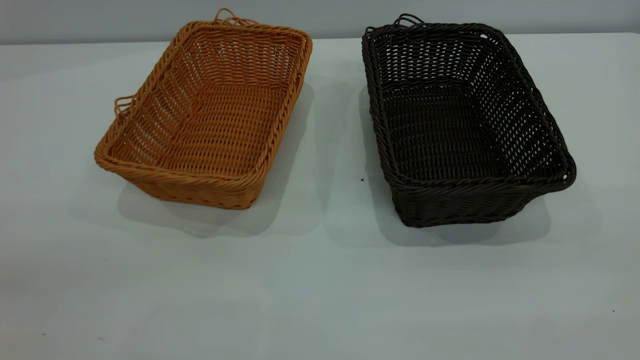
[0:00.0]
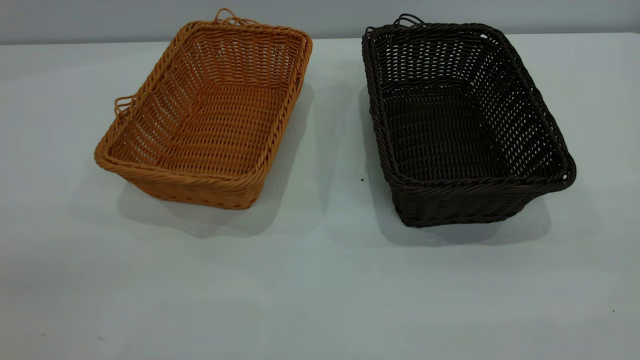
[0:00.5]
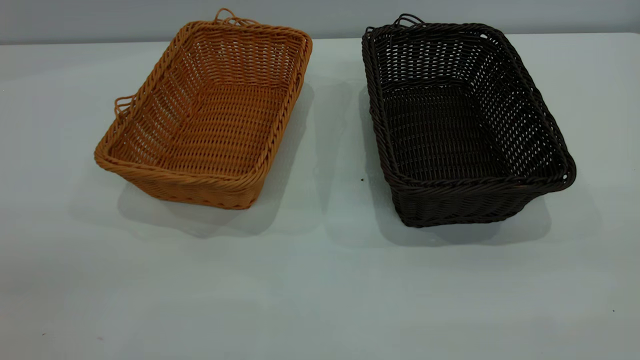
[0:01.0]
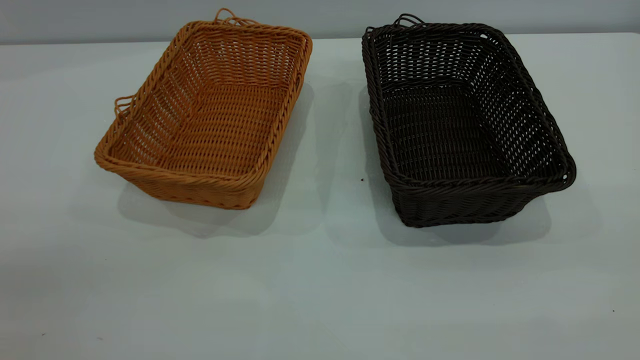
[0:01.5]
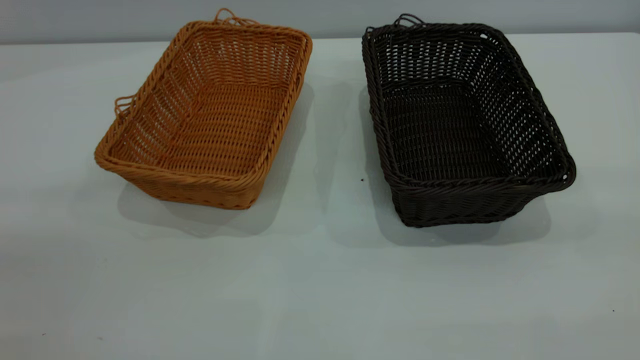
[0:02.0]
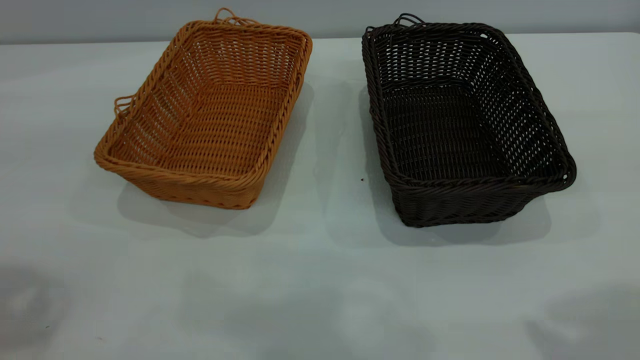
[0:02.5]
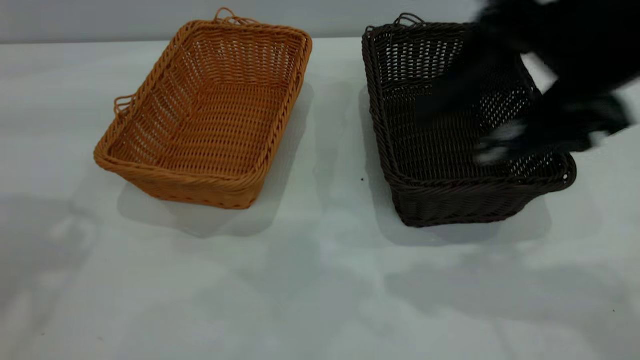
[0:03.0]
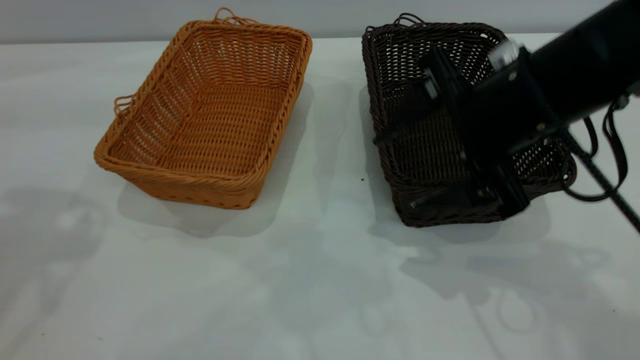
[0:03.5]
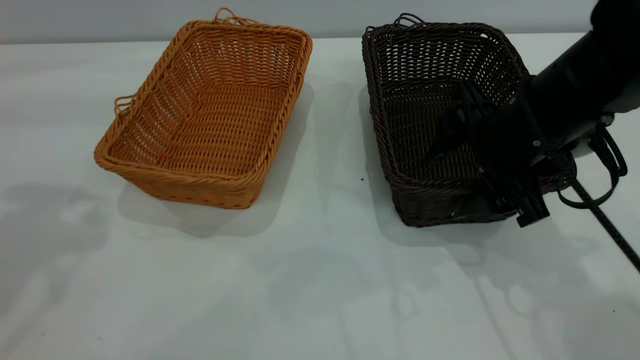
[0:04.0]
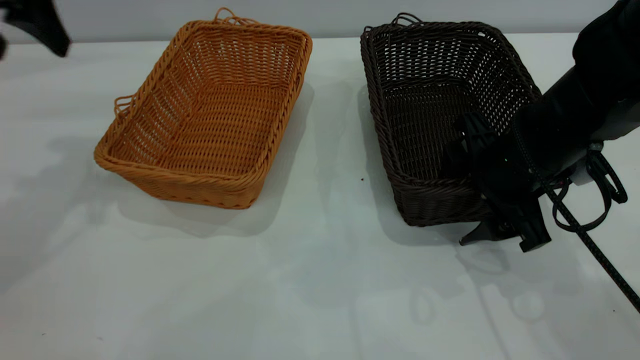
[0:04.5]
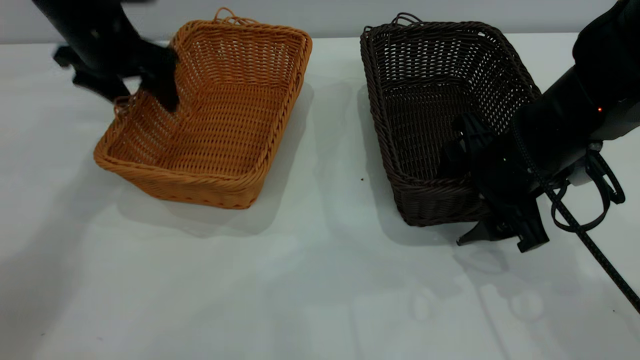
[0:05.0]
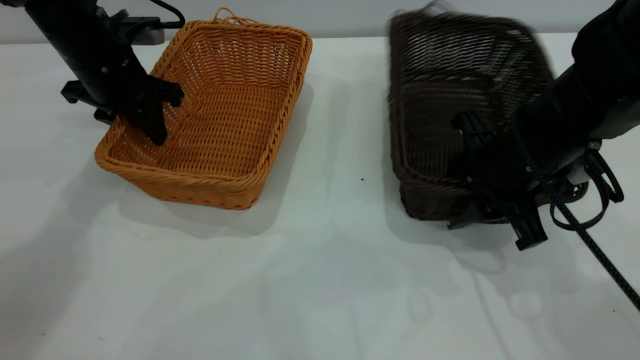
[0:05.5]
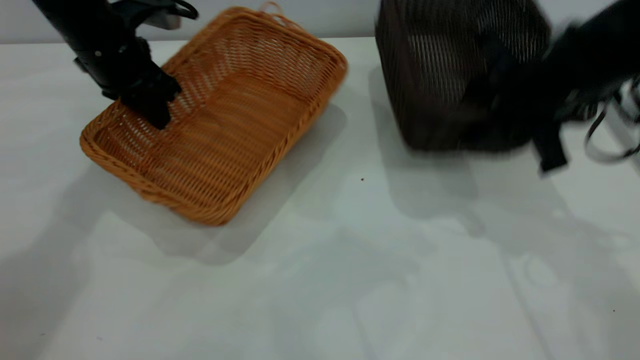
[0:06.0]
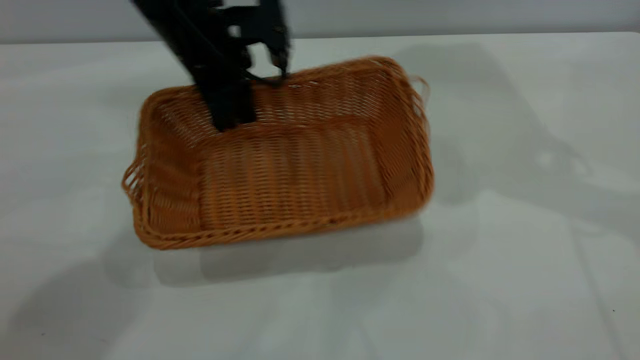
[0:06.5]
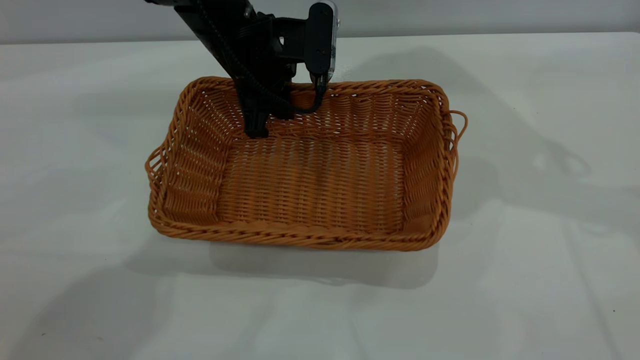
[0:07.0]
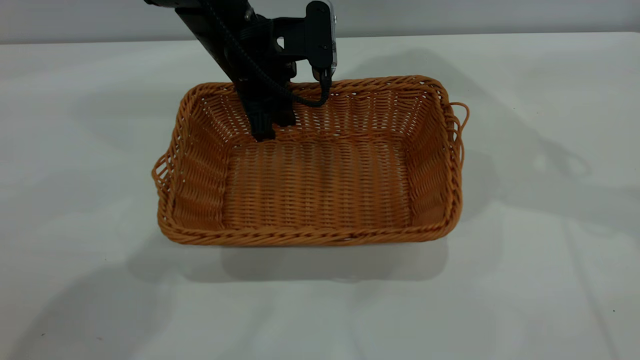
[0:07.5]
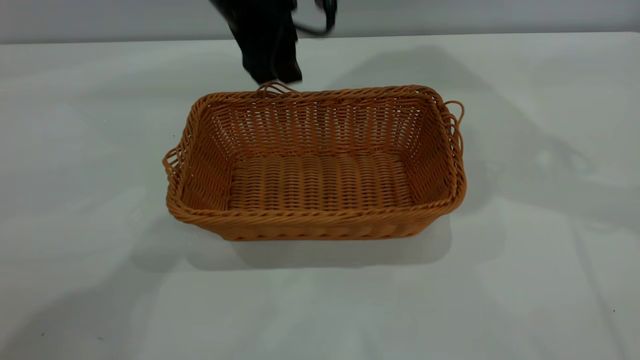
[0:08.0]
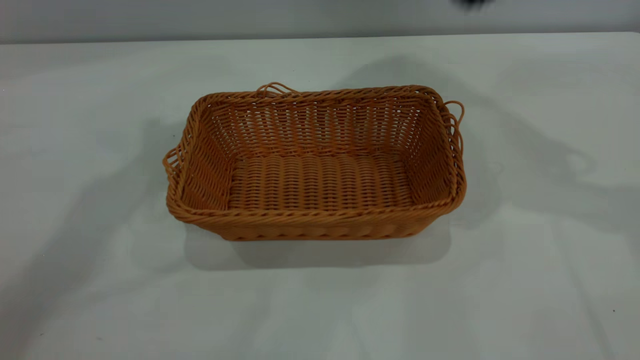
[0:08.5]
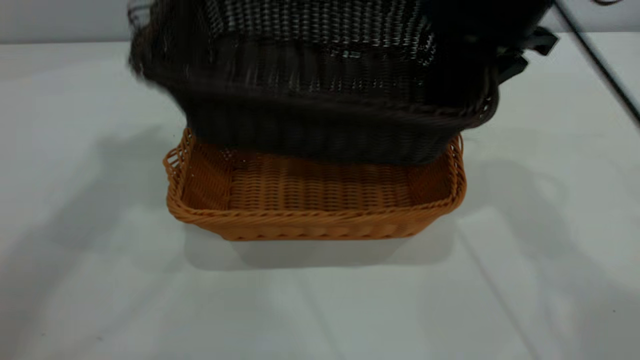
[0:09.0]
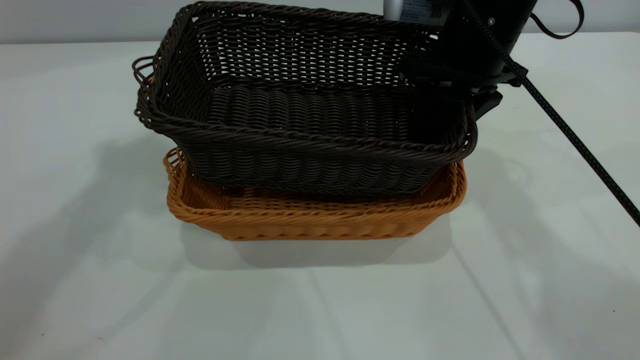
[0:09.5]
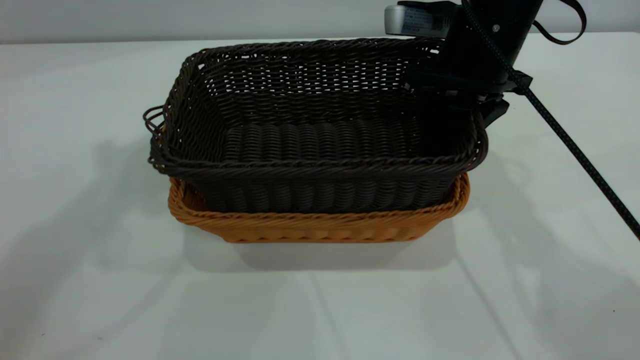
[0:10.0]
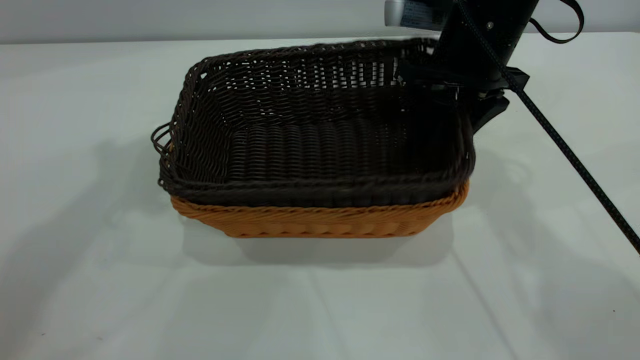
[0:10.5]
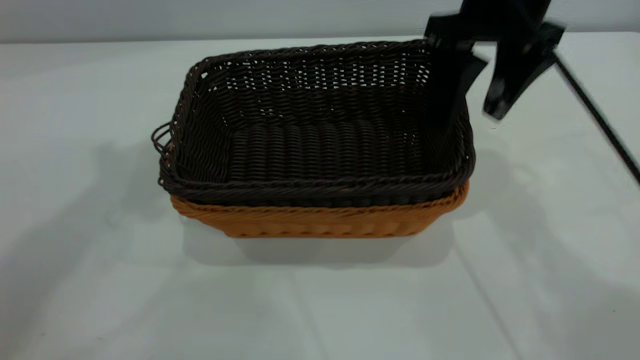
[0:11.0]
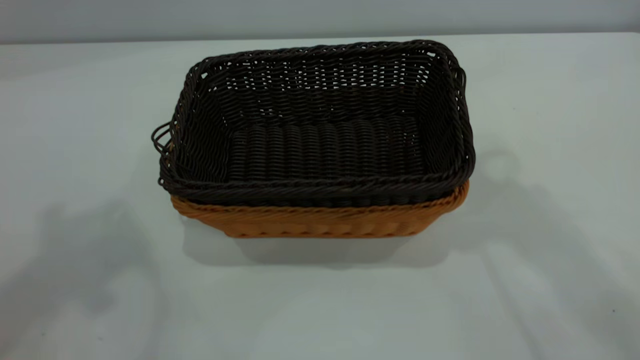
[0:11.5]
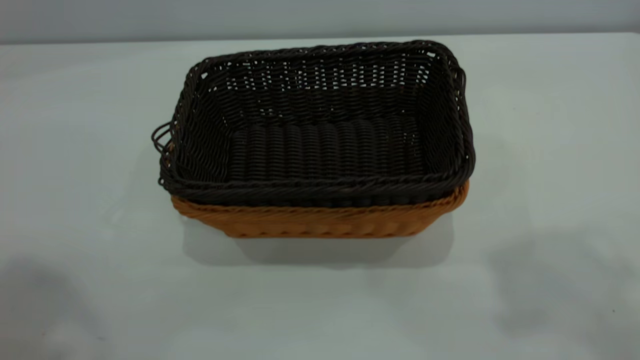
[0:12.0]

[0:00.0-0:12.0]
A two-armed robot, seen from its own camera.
Task of the whole recording: the left gripper grasp the brown basket and place it in the center of the table, the right gripper grasp the black basket and place it inside the brown one.
Step, 0:00.0 to 0:05.5: Pick up the light basket with the right gripper.
Step, 0:06.5 to 0:08.0: Place the light-colored basket in the center.
Step, 0:08.5 to 0:11.0: Place the dark basket on top of the light basket.
0:02.0 to 0:04.0: The right gripper is displaced forward, downward and to the left by about 40 cm.
0:04.0 to 0:06.0: The left gripper travels downward and forward by roughly 25 cm, and closes up, while the right gripper moves about 5 cm, and closes.
0:06.0 to 0:08.0: The right gripper is displaced upward and to the right by some 15 cm, while the left gripper travels to the right and upward by roughly 15 cm, and opens its fingers.
0:08.0 to 0:10.0: The left gripper travels upward and to the left by about 30 cm. Meanwhile the right gripper shifts some 20 cm downward and to the left.
0:10.0 to 0:12.0: The left gripper moves backward and upward, approximately 20 cm. The right gripper heads upward and backward, covering about 40 cm, and opens.
